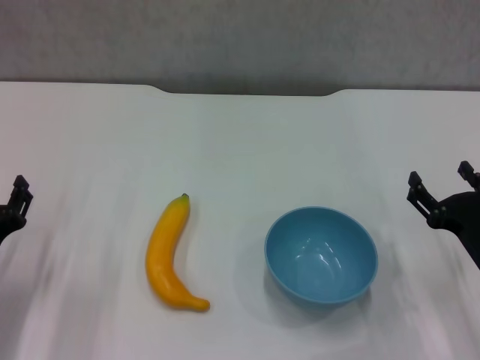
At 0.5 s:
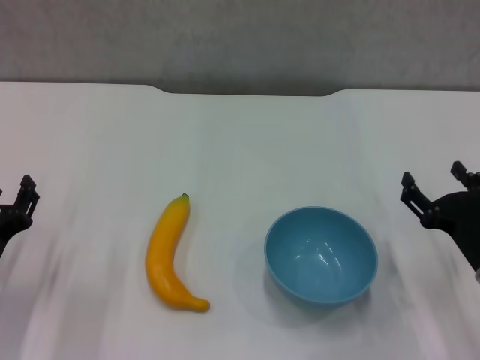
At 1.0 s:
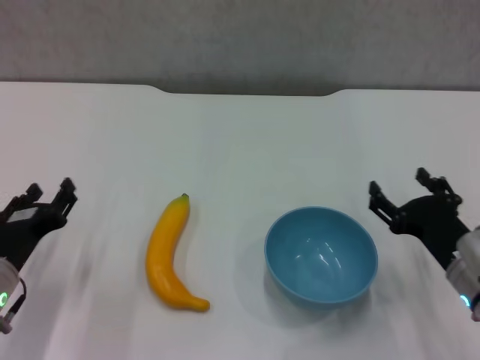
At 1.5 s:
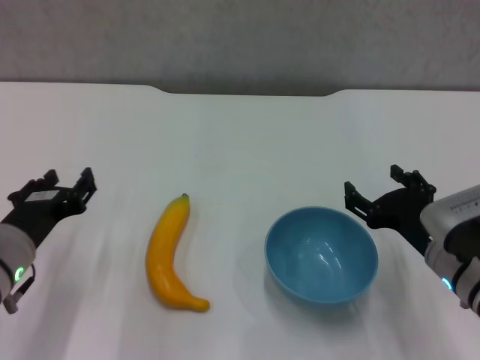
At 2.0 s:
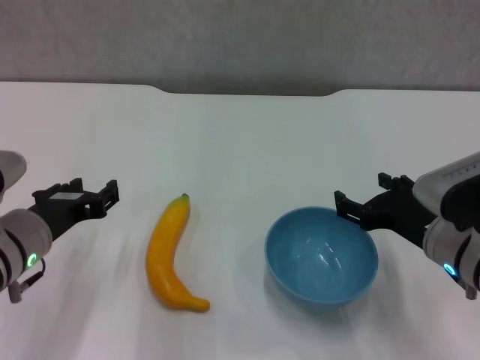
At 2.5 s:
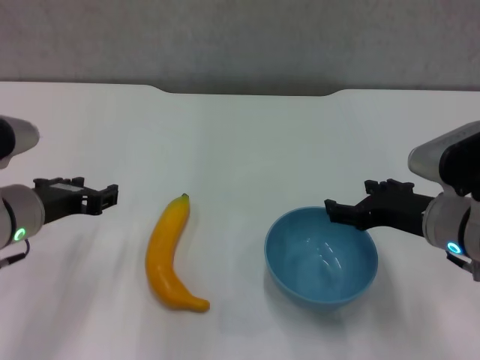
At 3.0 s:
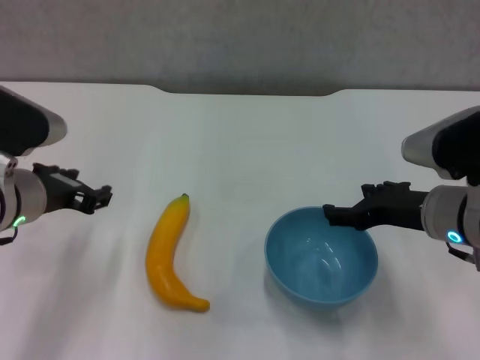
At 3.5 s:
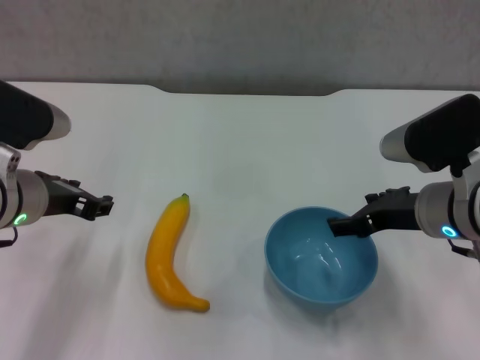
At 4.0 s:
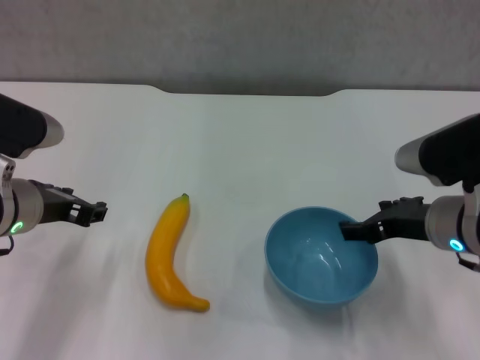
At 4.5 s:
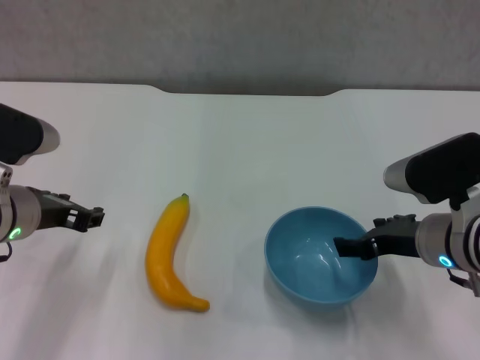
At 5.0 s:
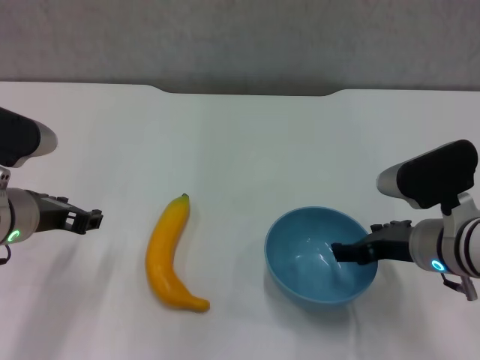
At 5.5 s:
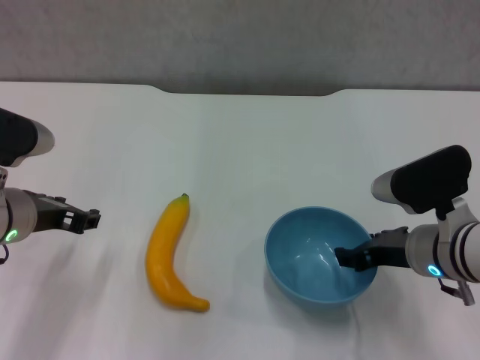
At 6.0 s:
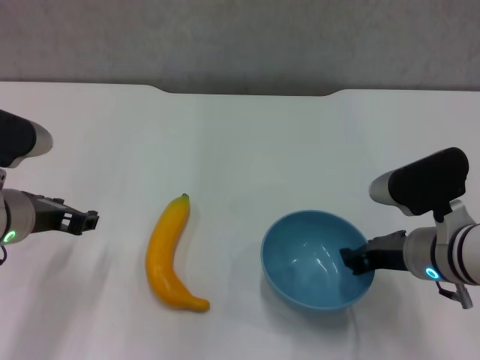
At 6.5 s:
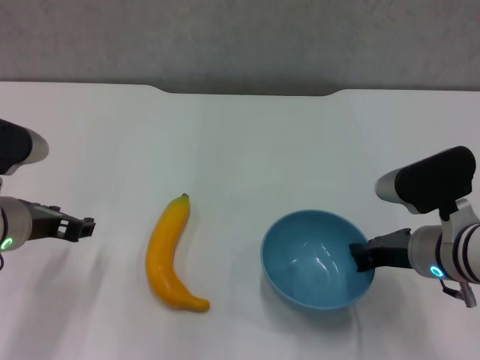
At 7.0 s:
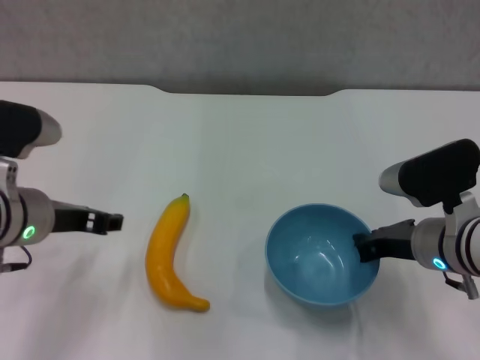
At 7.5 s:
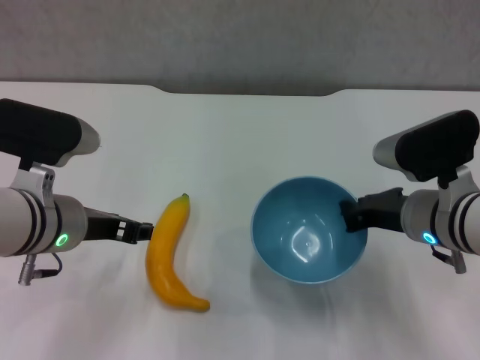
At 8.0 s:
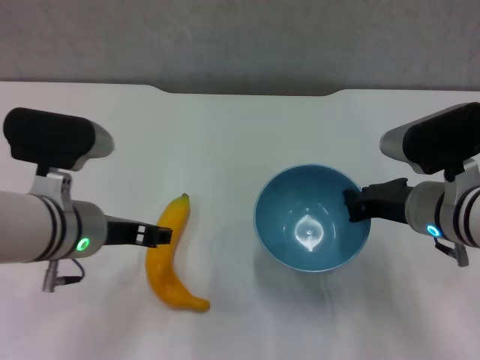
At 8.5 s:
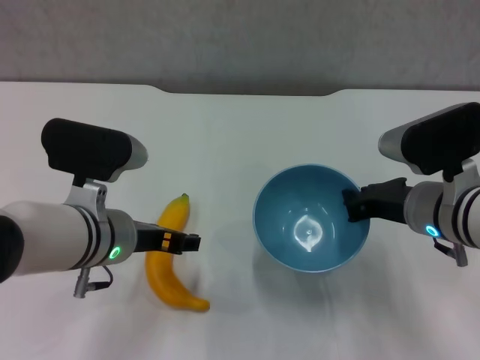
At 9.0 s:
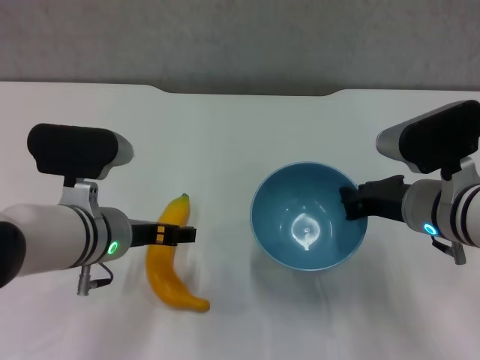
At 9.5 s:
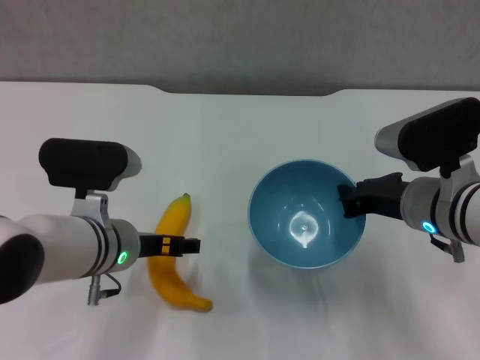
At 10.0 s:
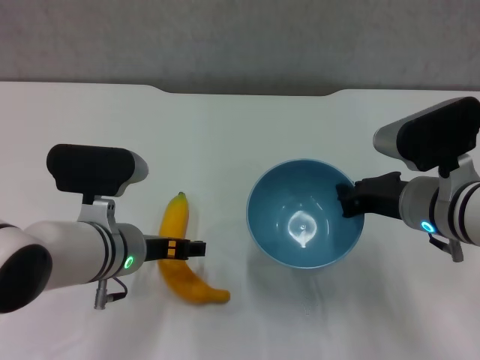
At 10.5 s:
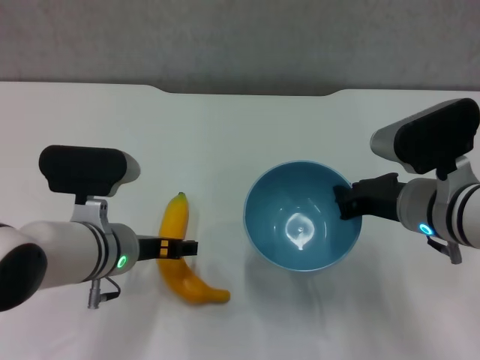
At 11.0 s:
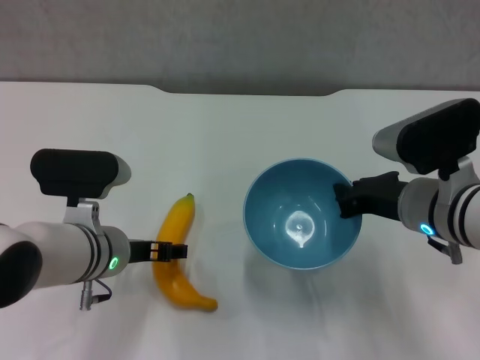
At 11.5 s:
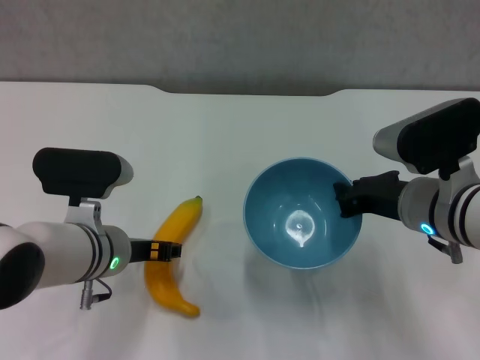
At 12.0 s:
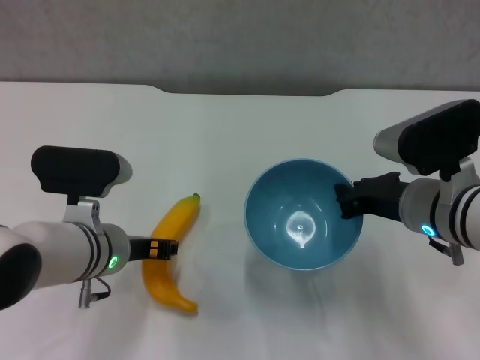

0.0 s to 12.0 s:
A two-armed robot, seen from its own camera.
Step, 0.0 to 6.5 s: Grasp the blue bowl with right gripper.
Step, 7.0 to 8.0 s: Lift the blue bowl with right gripper.
Step, 8.5 to 11.0 s: Grasp the banana with left gripper.
0.0 to 2.0 s: The left gripper goes roughly 10 cm upward and to the right. Meanwhile the right gripper moves upward and to the left, about 10 cm.
2.0 to 4.0 s: The left gripper ends up roughly 5 cm from where it was.
4.0 to 6.0 s: The right gripper closes its fingers.
6.0 to 8.0 s: The right gripper closes. The left gripper moves to the right, approximately 5 cm.
8.0 to 10.0 s: The left gripper changes place by about 5 cm, and opens.
10.0 to 12.0 s: The left gripper closes.

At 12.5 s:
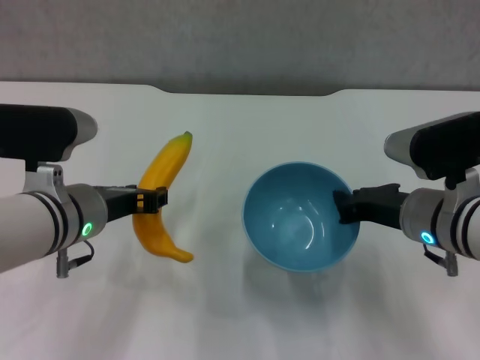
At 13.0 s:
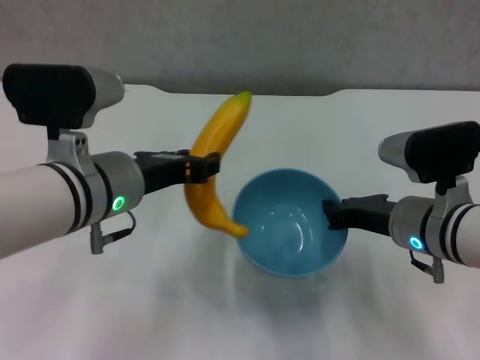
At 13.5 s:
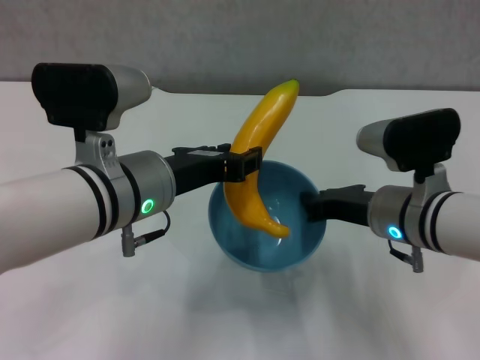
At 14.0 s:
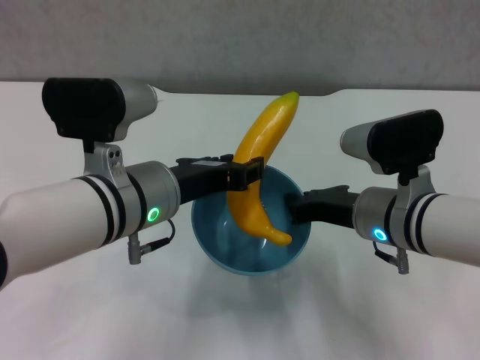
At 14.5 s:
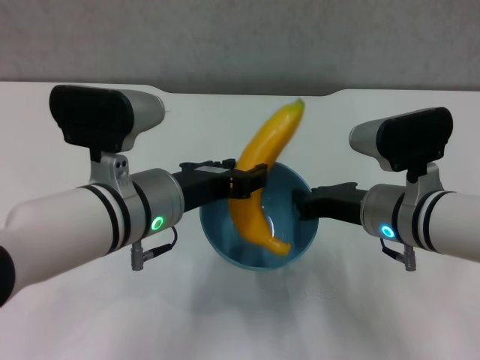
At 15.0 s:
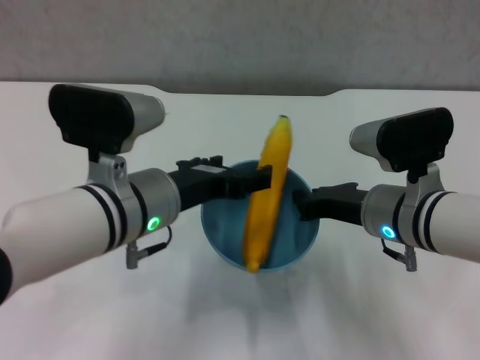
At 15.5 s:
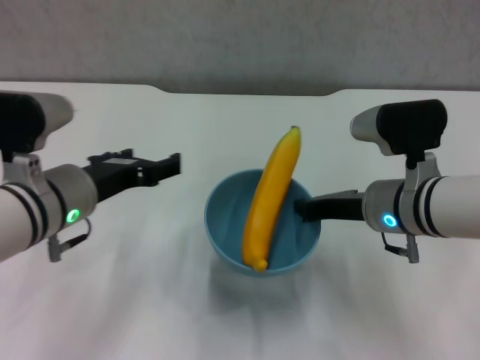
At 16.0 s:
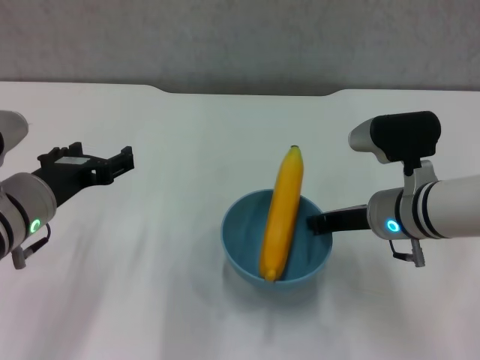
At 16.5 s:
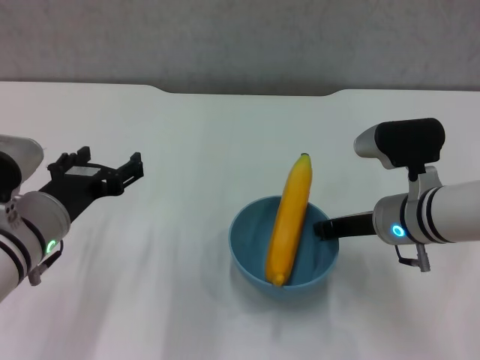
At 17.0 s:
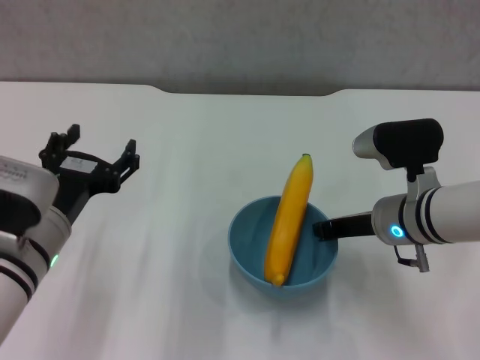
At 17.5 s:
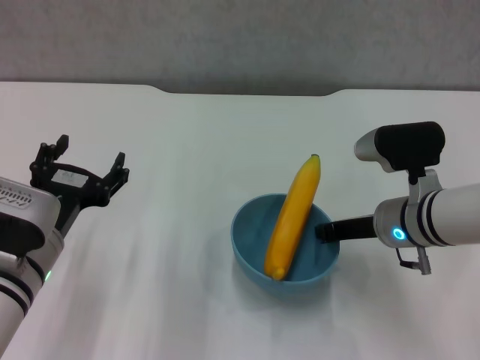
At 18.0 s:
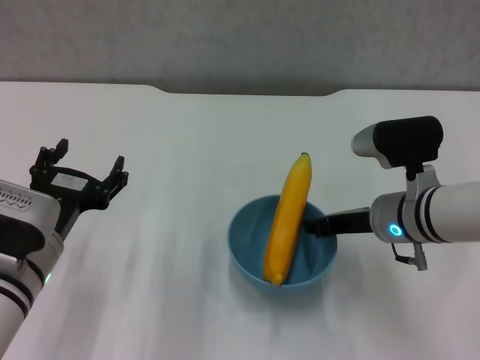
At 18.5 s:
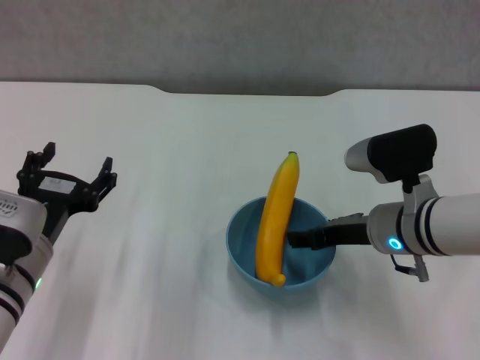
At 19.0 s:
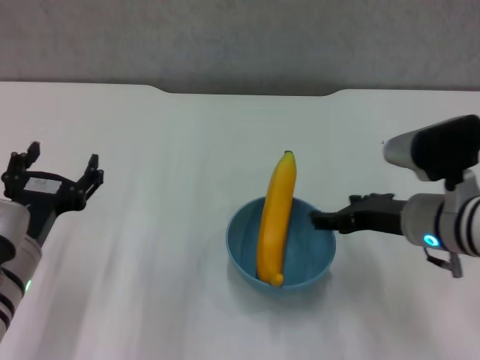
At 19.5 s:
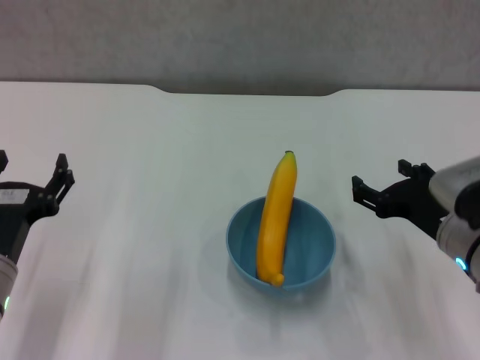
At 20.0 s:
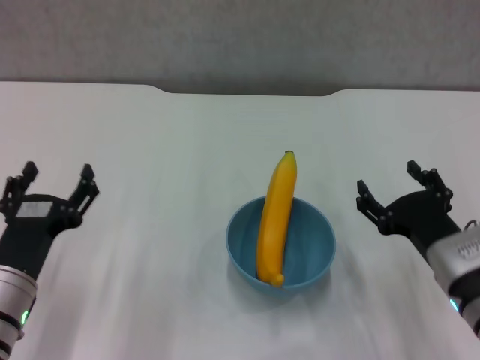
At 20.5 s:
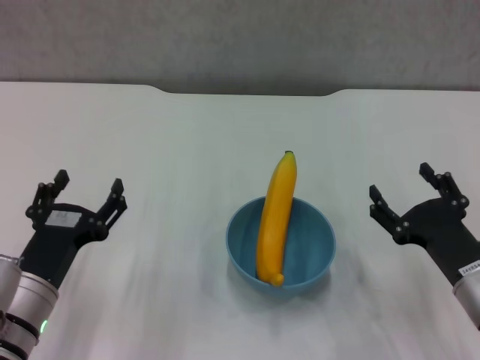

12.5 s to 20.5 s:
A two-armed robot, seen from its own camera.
Step, 12.5 to 14.5 s: Place the banana in the blue bowl with left gripper.
Step, 15.0 to 18.5 s: Place the bowl on the table with right gripper.
12.5 to 14.5 s: The left gripper heads to the right, covering roughly 5 cm.
14.5 to 16.5 s: The left gripper shifts some 10 cm to the left, and opens up.
16.5 to 18.5 s: The right gripper opens.
18.5 to 20.5 s: The right gripper is displaced backward and to the right by approximately 10 cm, and opens; the left gripper changes place by approximately 5 cm.
